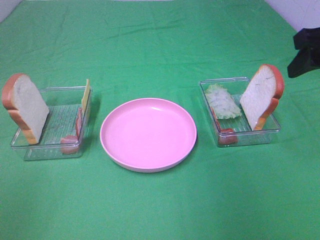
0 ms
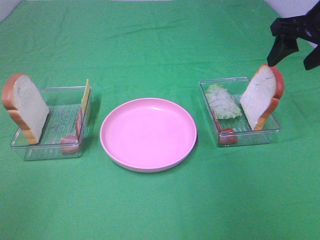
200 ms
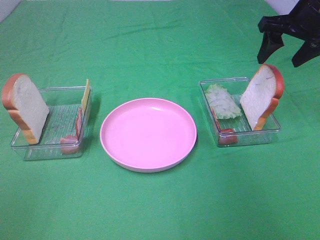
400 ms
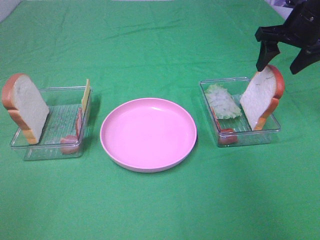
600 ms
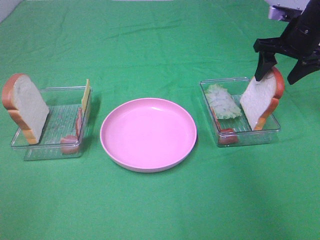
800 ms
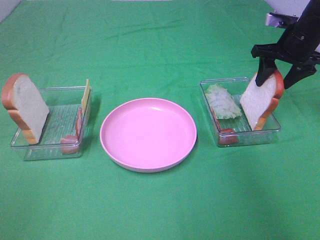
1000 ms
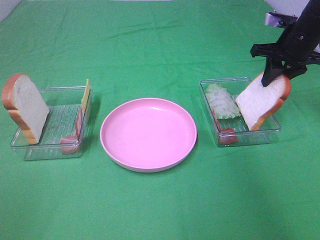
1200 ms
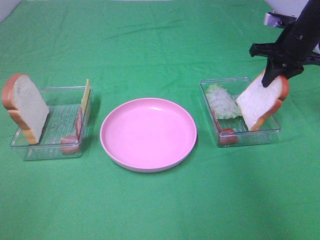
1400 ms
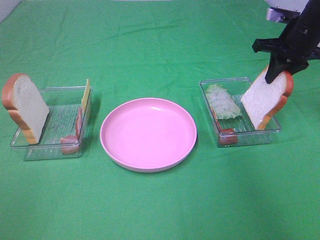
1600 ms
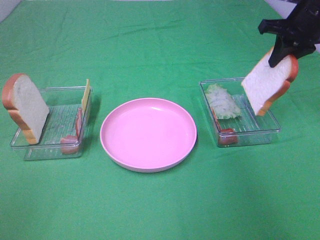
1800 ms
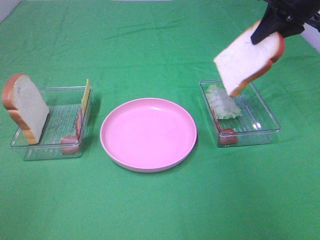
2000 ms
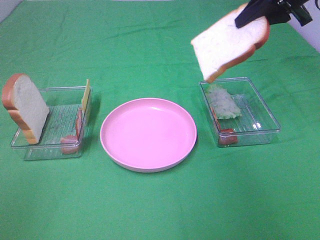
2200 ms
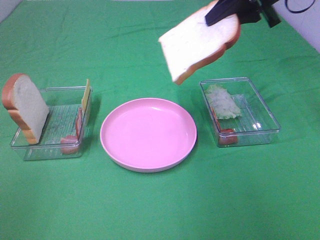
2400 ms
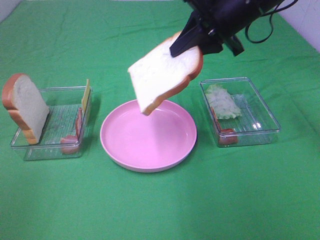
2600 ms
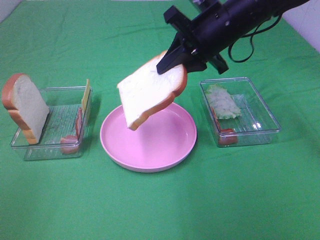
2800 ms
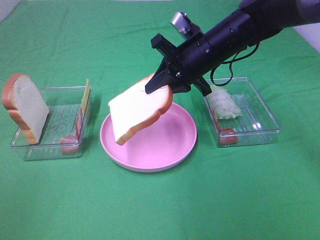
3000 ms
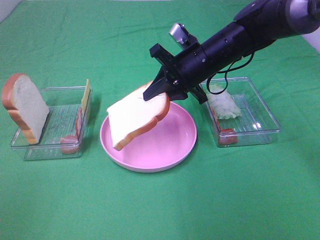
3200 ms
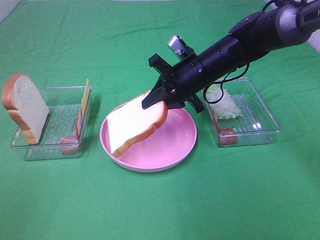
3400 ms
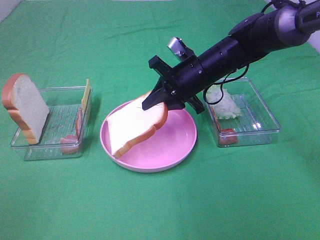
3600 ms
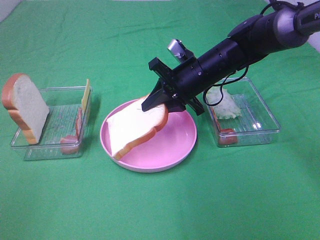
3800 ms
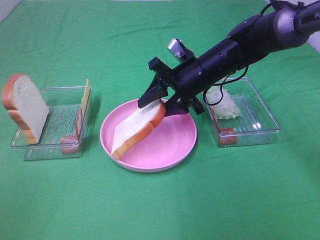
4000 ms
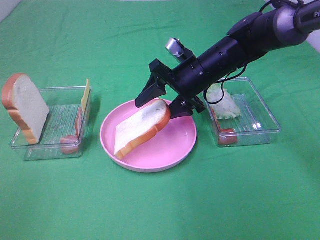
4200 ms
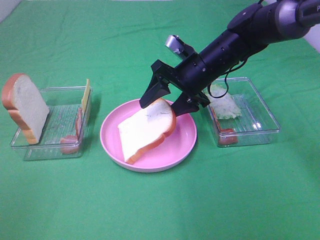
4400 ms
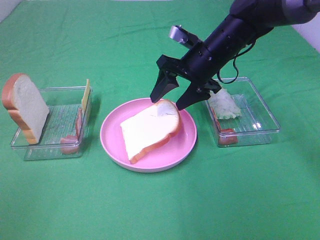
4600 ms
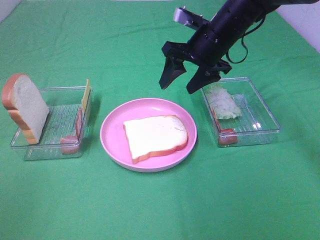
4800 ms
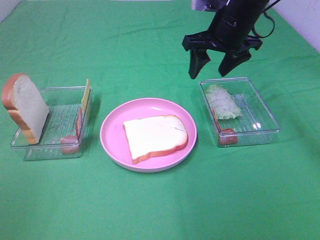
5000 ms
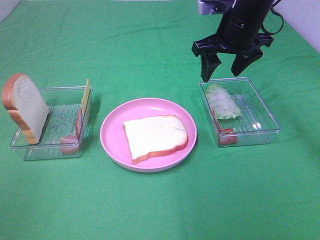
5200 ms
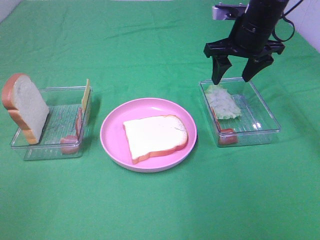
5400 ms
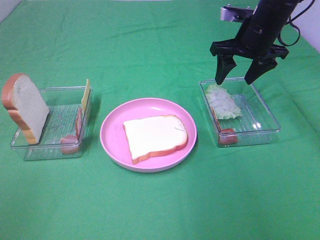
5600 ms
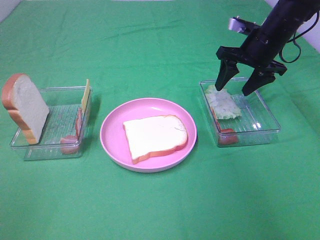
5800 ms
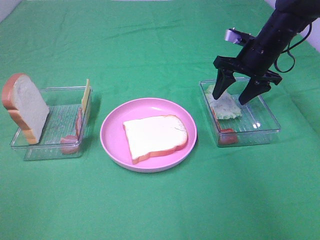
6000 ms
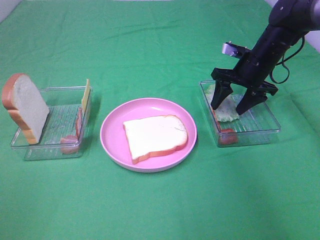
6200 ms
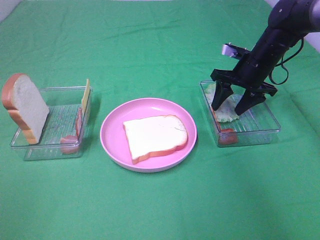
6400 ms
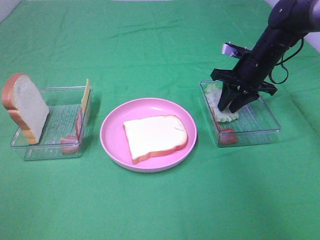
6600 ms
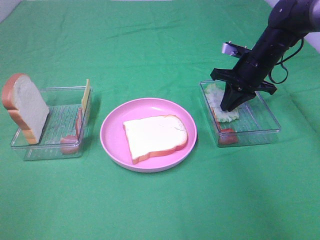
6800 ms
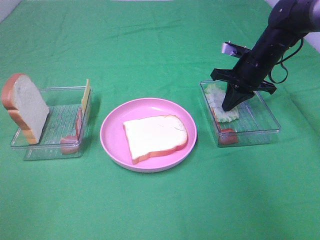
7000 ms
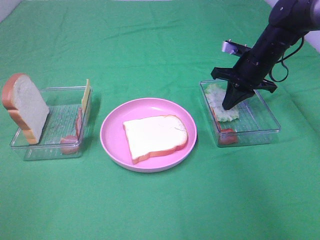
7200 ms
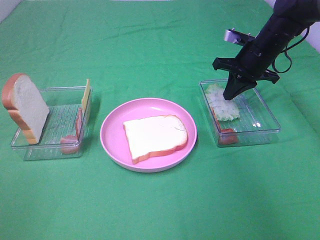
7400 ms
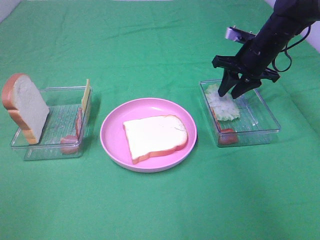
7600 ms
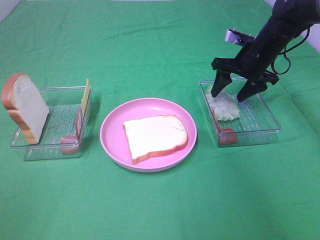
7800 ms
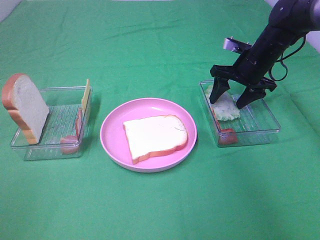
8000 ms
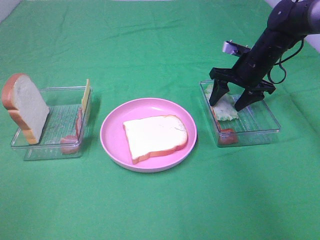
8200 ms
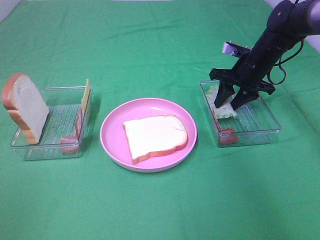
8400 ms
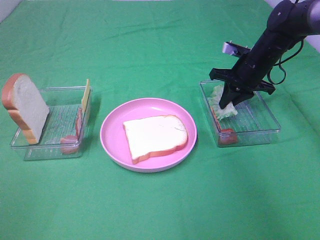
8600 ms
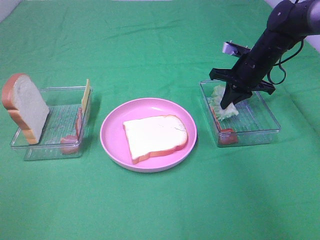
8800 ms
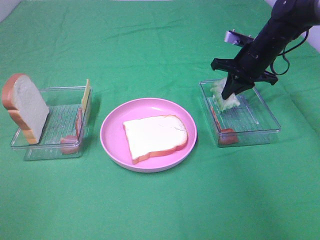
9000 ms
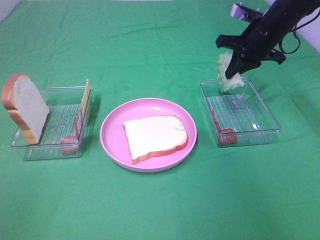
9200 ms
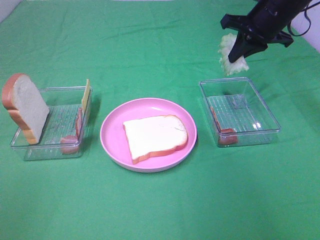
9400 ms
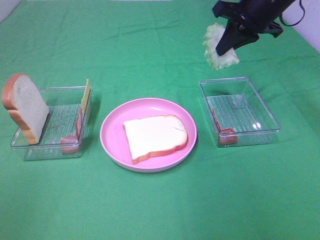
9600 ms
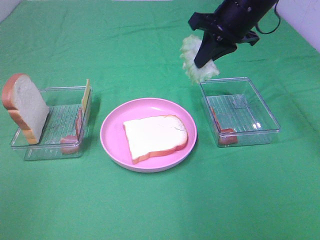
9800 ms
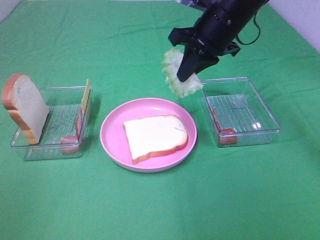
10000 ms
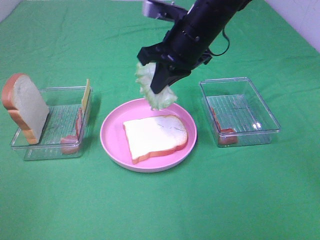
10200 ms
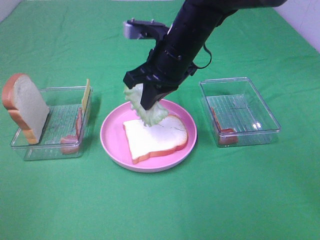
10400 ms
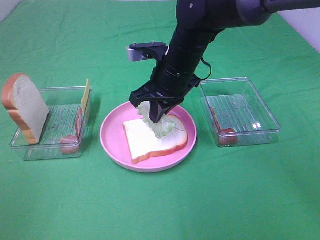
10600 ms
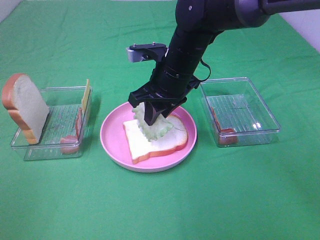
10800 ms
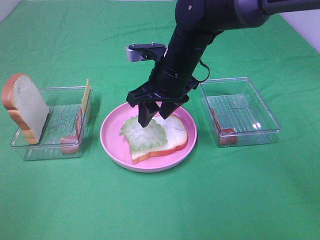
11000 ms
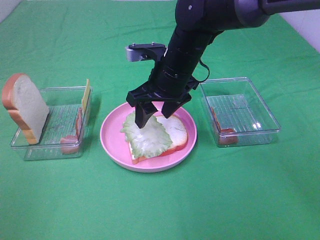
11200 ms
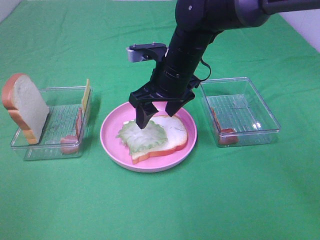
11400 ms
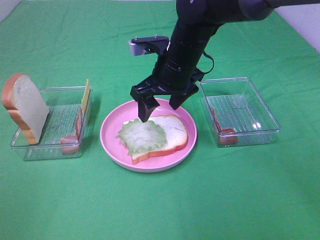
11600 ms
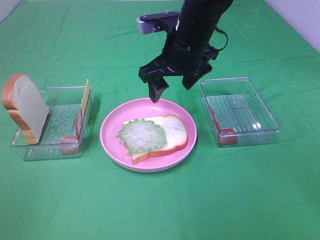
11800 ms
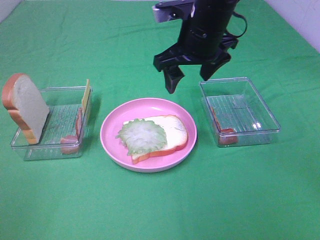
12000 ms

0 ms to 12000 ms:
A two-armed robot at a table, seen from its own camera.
Task of the whole recording: Make sandwiches.
Step, 1400 ms to 4600 ms: Right hand:place the bread slice on the plate.
Step, 4800 ms to 8600 ms: Right hand:grab the lettuce slice.
Step, 8800 ms to 11400 ms: Right hand:place the lettuce slice on the bread slice.
0 ms to 1600 ms: The right gripper goes roughly 15 cm forward and downward, and closes.
1600 ms to 3000 ms: The right gripper travels to the left by approximately 20 cm.
3000 ms to 4400 ms: The right gripper opens its fingers.
4400 ms to 6000 ms: The right gripper travels to the right and forward by some 15 cm.
6000 ms to 7600 ms: The right gripper closes up.
7600 ms to 9000 ms: The right gripper closes.
9000 ms to 10400 ms: The right gripper shifts approximately 20 cm to the left and backward.
10400 ms to 12000 ms: The right gripper ends up some 5 cm from where it was, and opens its fingers.

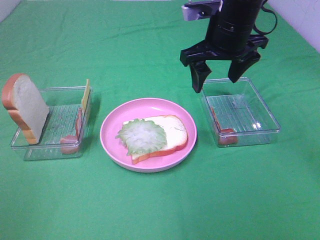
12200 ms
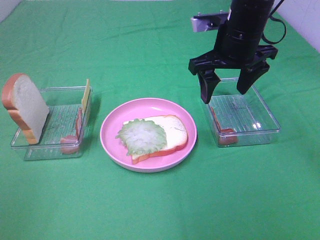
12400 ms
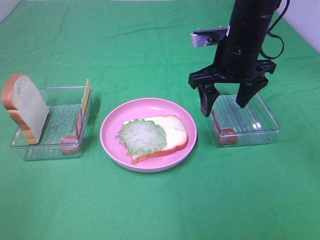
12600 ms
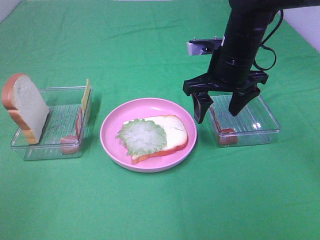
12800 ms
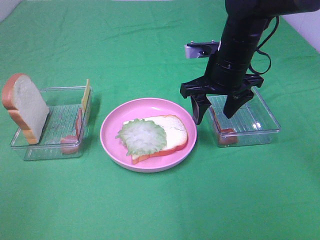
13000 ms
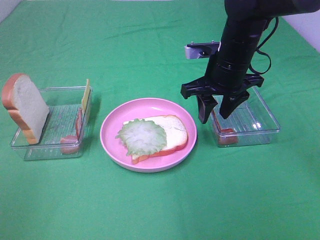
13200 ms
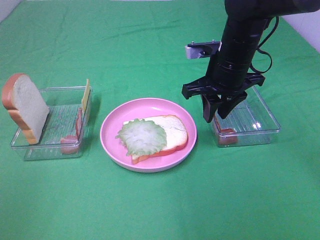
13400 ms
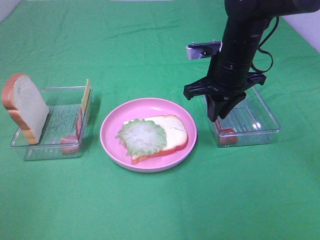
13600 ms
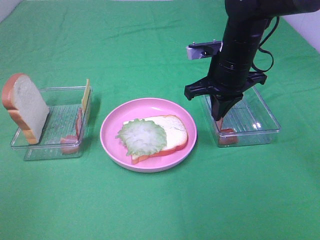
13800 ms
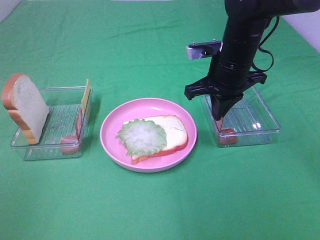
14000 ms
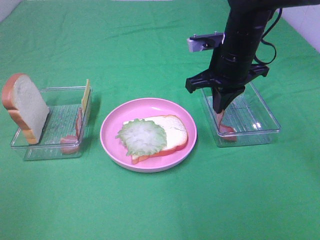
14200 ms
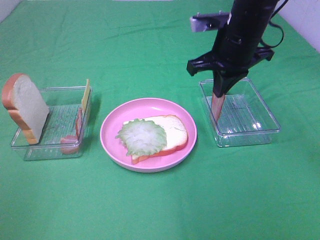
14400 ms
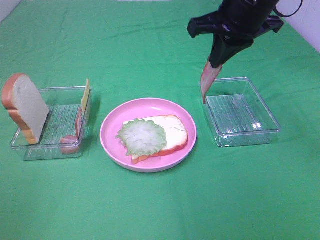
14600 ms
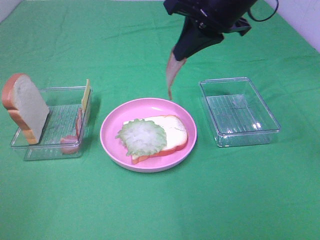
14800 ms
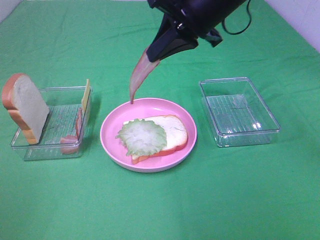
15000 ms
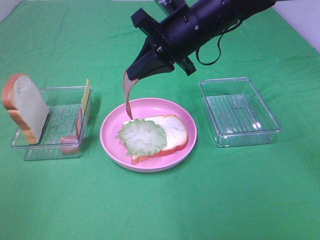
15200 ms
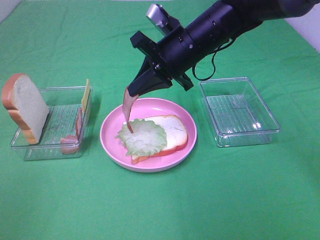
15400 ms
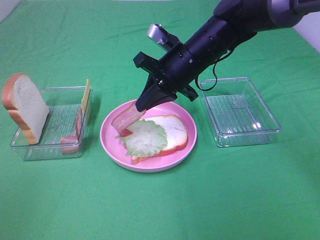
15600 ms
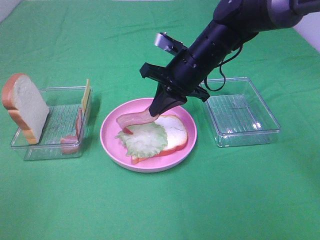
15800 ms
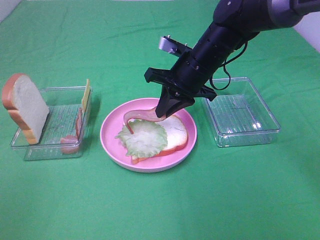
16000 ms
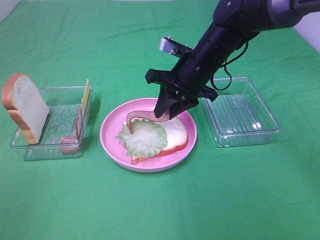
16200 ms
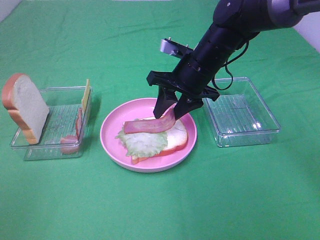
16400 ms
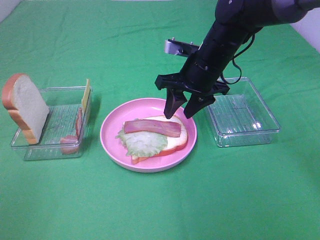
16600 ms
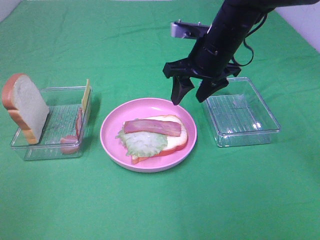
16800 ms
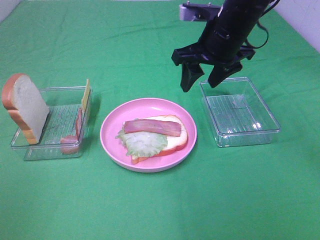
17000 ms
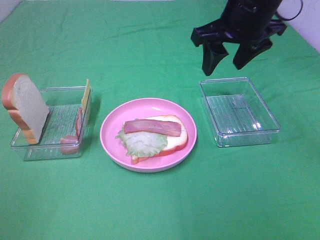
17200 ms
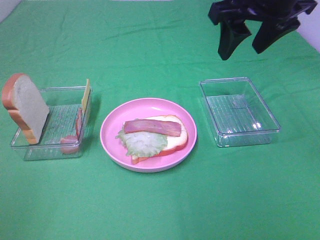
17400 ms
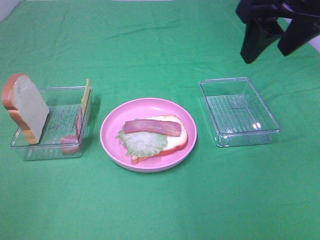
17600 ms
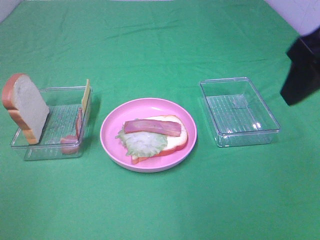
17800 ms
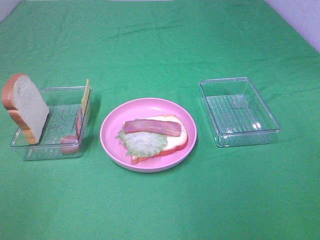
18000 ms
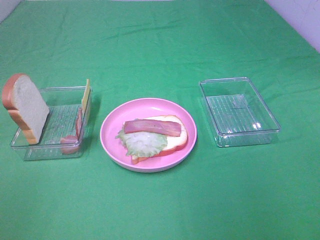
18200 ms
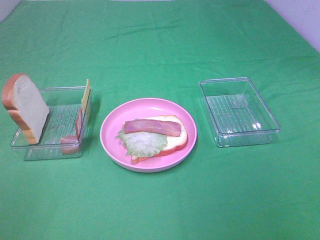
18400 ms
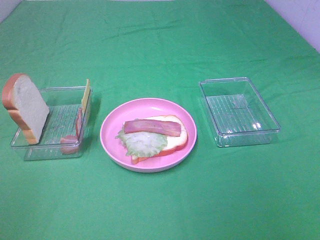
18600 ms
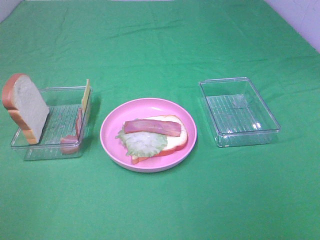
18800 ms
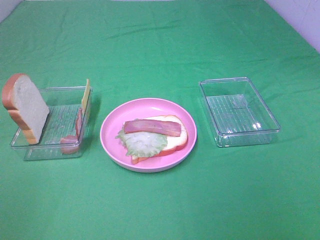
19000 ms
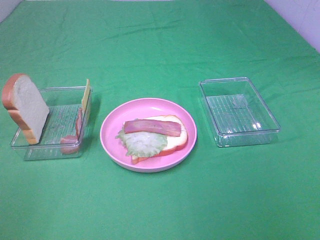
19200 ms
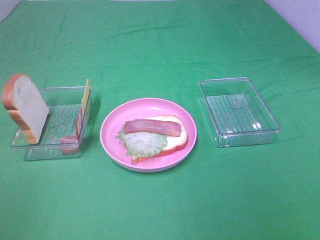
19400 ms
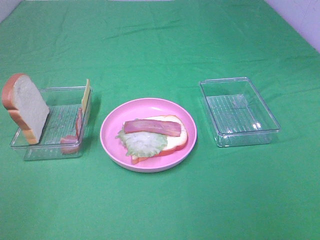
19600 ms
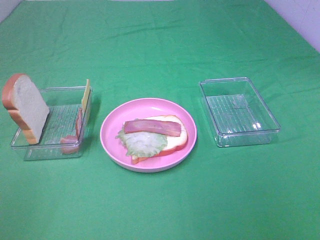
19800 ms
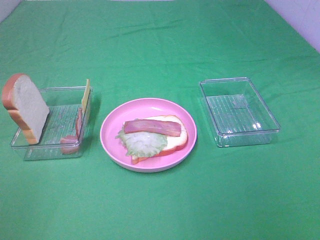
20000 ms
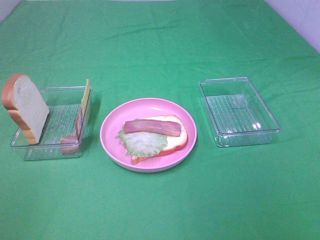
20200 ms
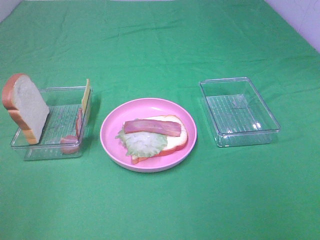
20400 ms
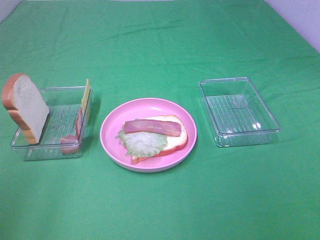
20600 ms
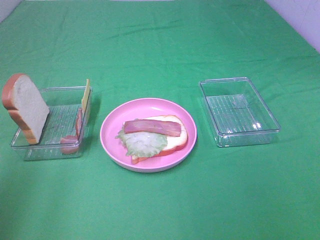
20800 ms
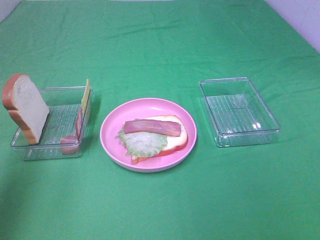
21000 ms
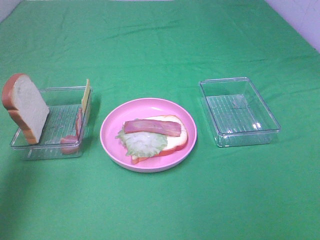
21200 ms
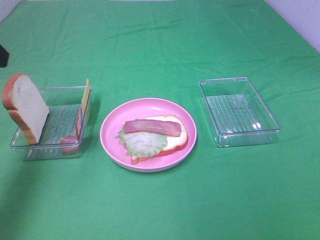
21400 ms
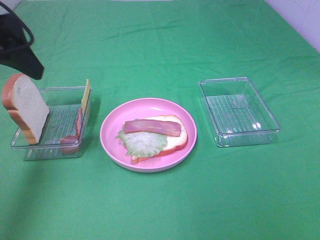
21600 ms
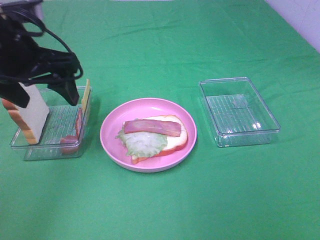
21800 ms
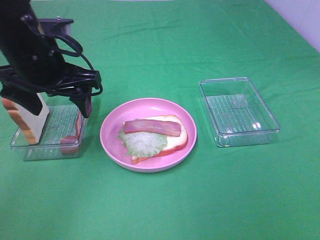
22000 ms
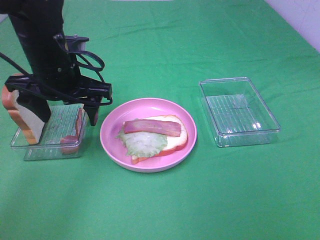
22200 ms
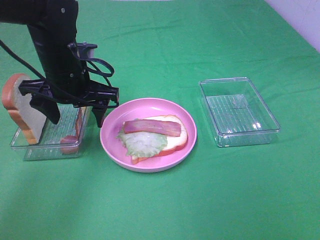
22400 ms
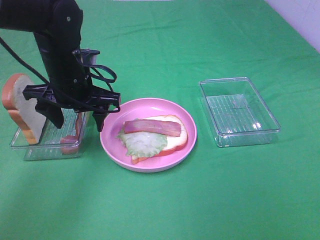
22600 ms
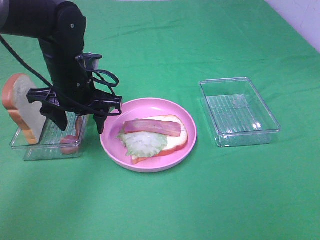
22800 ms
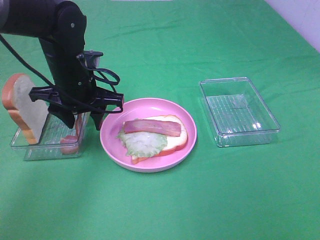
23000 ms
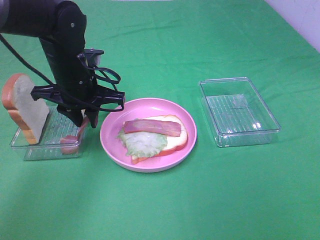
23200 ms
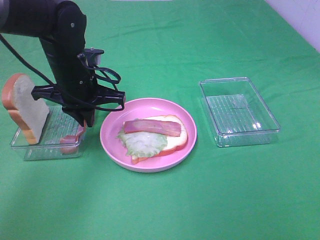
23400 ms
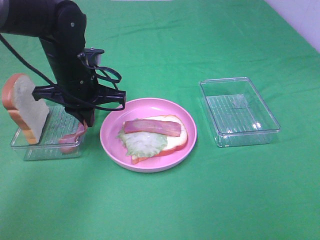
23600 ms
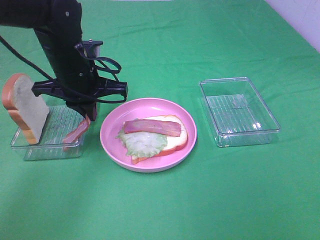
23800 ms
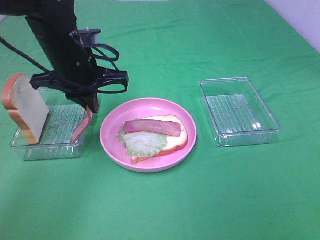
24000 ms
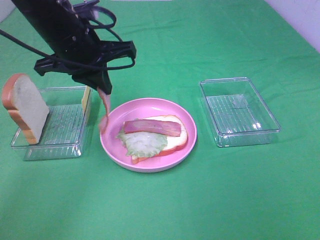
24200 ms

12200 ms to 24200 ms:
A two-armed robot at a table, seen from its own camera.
Task of the whole recording: Make sandwiches.
Step, 12200 ms to 14200 ms: Right hand:grab the bacon.
Step, 14400 ms to 16600 ms: Right hand:place bacon on lettuce slice.
Step, 16800 ms to 23800 ms: Left hand:grab the bacon.
12200 ms to 13800 ms: The right gripper goes approximately 5 cm downward, and closes up.
13800 ms to 15200 ms: The right gripper heads to the left, covering roughly 5 cm.
15200 ms to 16600 ms: The right gripper goes approximately 5 cm downward, and opens.
16600 ms to 18200 ms: The right gripper travels backward, to the right and upward by roughly 35 cm.
19800 ms to 21200 ms: The left gripper shifts about 20 cm forward.
21200 ms to 22600 ms: The left gripper travels downward, to the right and forward by roughly 30 cm.
22600 ms to 24200 ms: The left gripper moves upward, some 10 cm, and closes.
